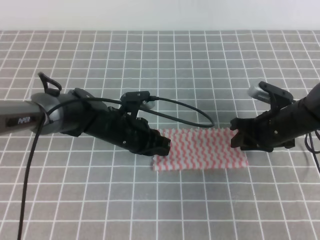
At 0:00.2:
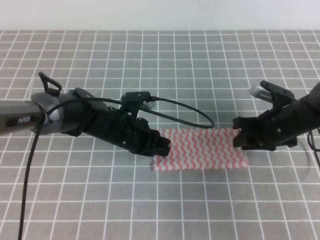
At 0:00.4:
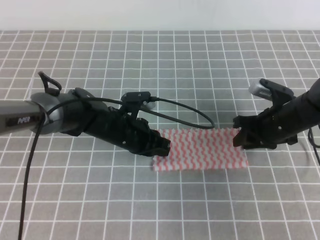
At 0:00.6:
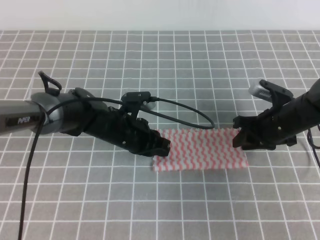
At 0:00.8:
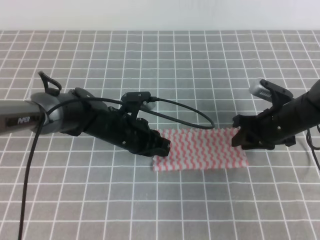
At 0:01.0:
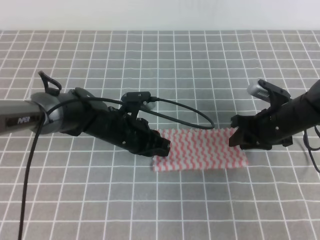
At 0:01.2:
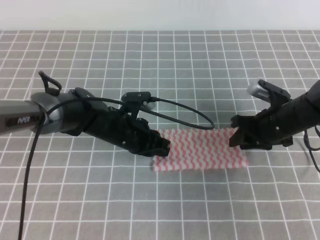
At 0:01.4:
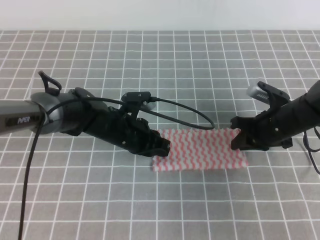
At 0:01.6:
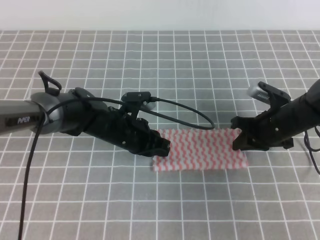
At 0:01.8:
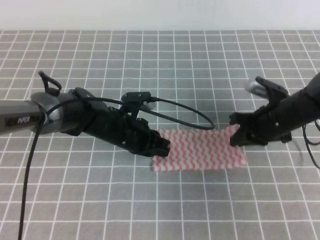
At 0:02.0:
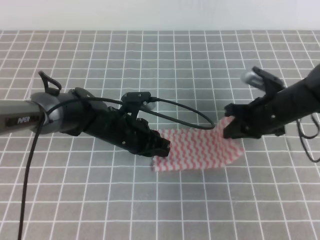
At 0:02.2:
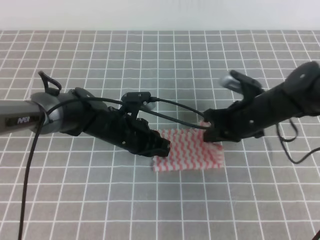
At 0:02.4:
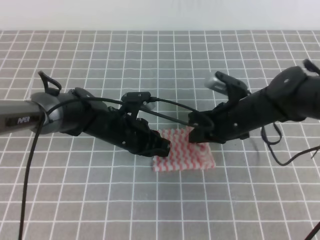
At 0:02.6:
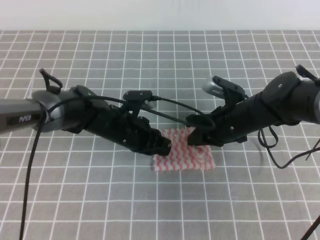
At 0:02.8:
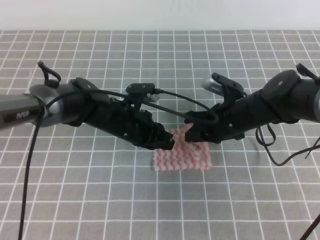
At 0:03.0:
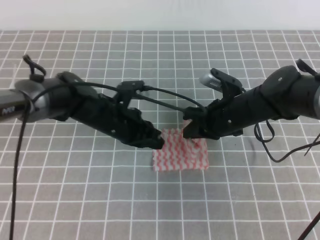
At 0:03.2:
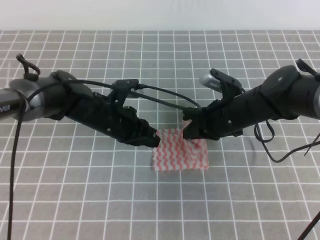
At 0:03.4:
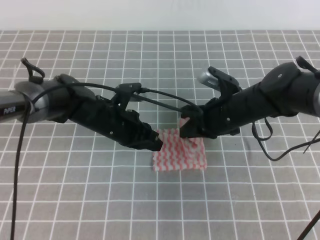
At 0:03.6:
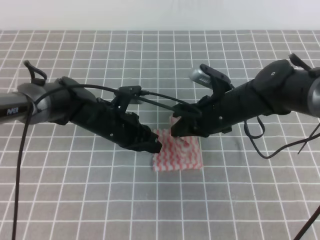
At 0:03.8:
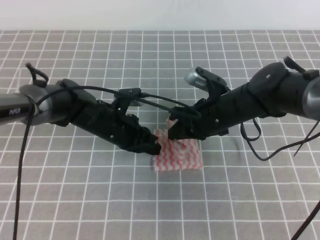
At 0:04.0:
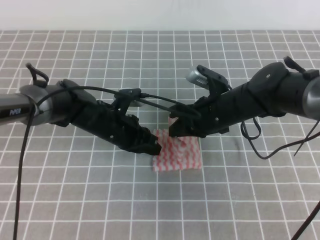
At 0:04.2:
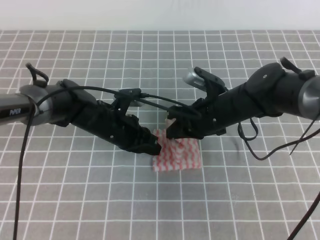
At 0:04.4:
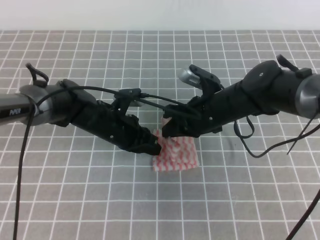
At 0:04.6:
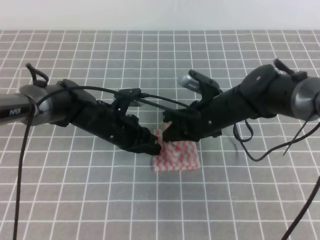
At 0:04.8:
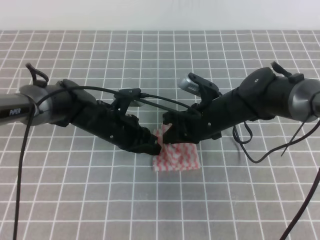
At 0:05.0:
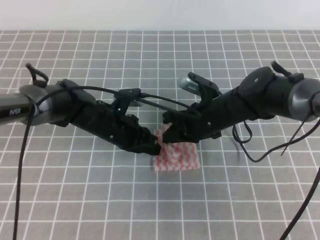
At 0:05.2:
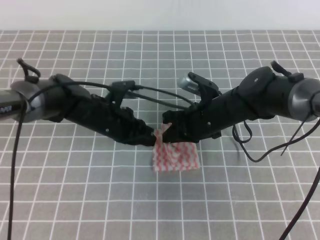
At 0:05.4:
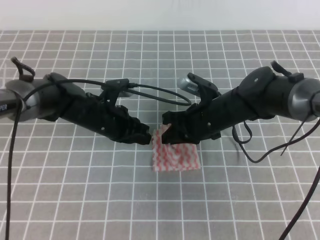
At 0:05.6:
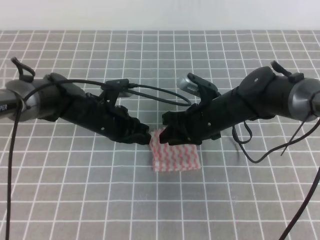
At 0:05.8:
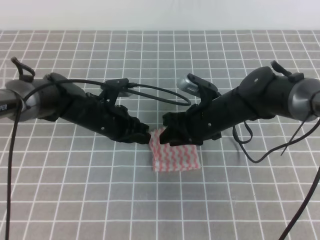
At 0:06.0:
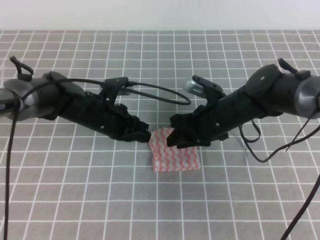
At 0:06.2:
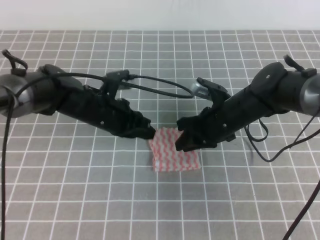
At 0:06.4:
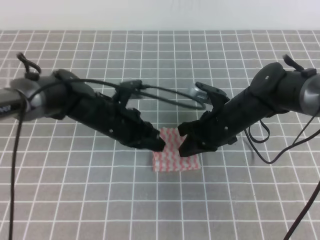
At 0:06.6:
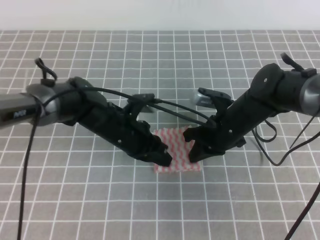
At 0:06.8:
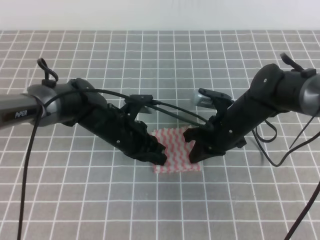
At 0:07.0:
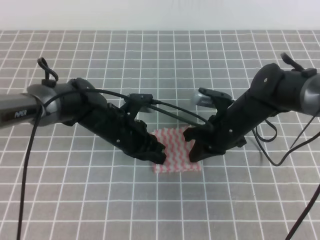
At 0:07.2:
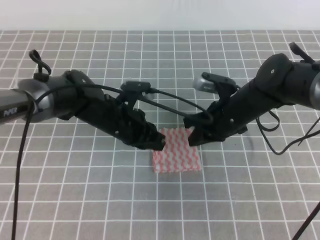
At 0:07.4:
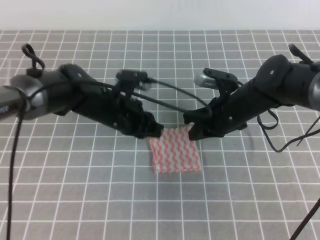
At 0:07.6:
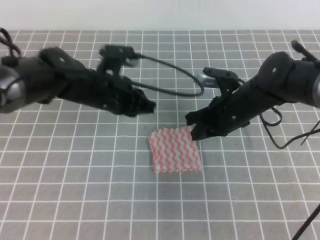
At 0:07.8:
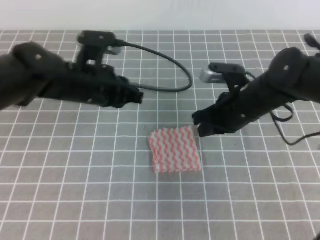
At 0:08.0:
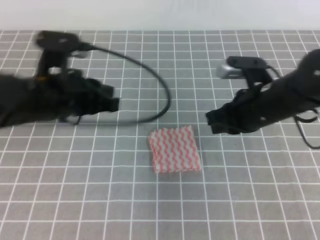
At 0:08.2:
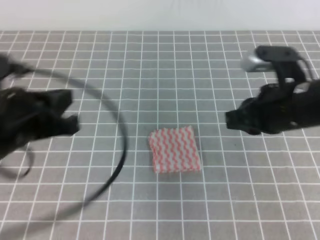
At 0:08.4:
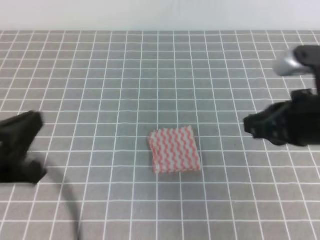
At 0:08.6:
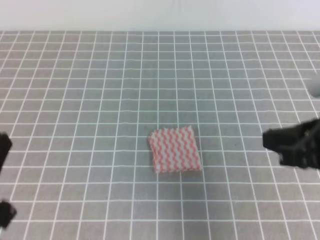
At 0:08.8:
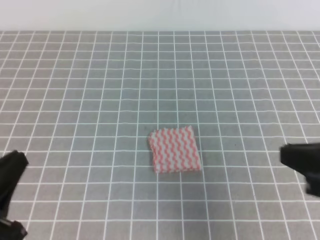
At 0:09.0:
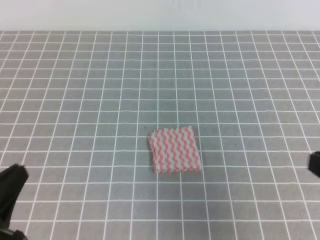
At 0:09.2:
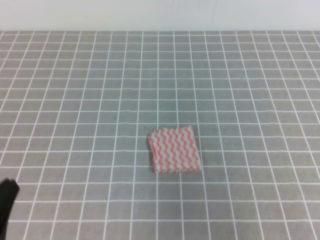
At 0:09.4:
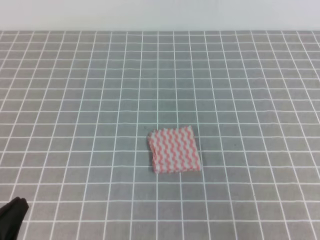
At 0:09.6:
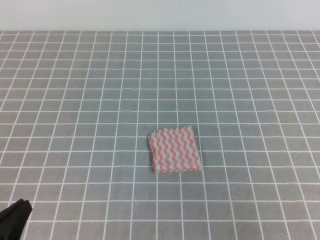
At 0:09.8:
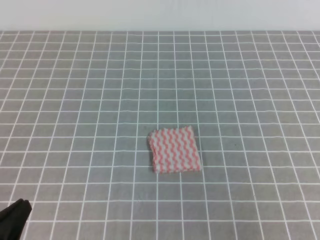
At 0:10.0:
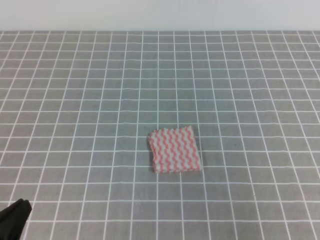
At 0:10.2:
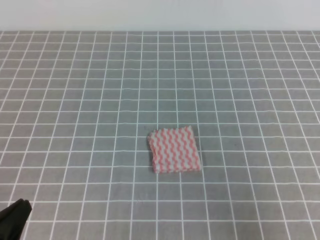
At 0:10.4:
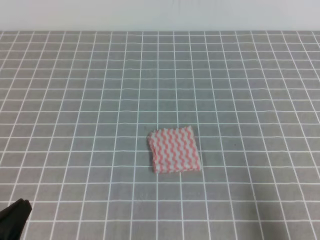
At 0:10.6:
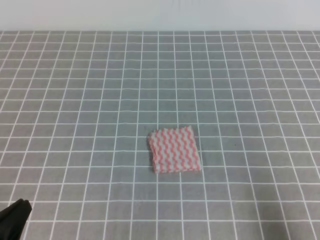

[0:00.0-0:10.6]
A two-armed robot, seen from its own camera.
0:00.0 to 0:01.6: The right gripper closes.
0:01.6 to 0:03.0: The right gripper shifts about 10 cm to the left.
0:03.0 to 0:04.6: The grippers move only a little.
0:04.6 to 0:06.0: The right gripper opens.
0:06.0 to 0:07.6: The left gripper is displaced upward by about 5 cm. The right gripper closes.
0:07.6 to 0:09.0: The left gripper heads backward and to the left, covering some 30 cm. Meanwhile the right gripper is displaced backward, to the right and upward by about 30 cm.
0:09.0 to 0:10.6: The right gripper moves downward, to the right and backward, approximately 15 cm. The left gripper shifts approximately 5 cm downward.

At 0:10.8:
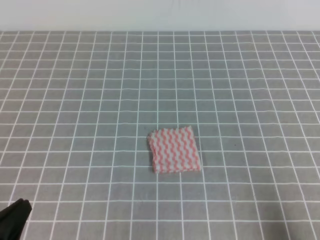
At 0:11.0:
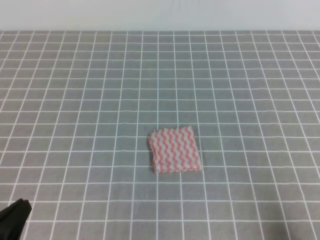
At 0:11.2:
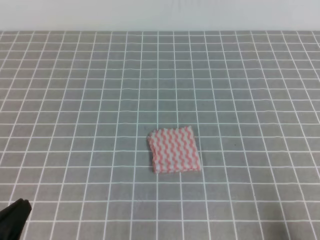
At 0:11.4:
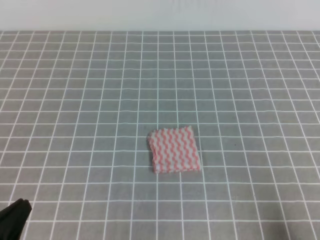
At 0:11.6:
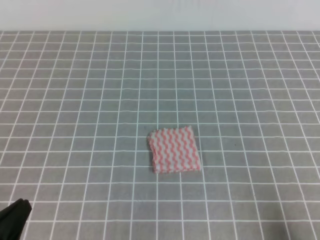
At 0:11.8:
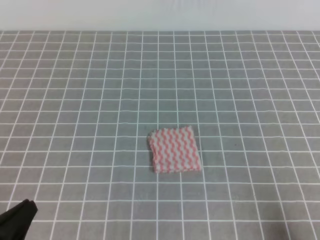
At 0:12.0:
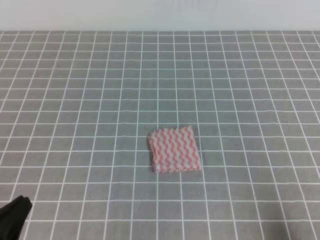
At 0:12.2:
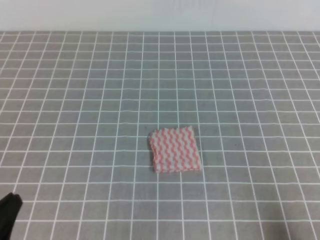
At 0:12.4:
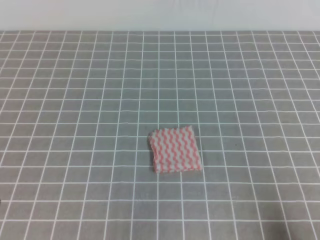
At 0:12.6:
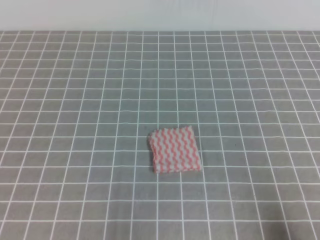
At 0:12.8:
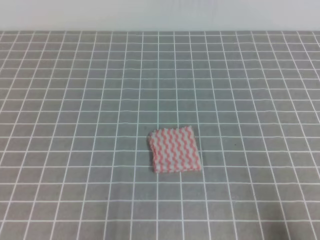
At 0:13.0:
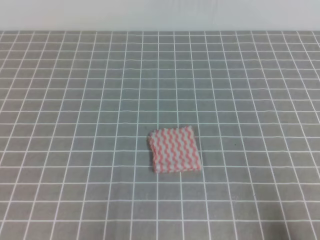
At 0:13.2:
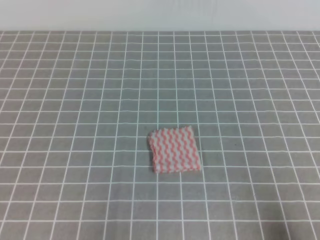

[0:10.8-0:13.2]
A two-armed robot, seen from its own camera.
Step, 0:10.8 to 0:13.2: Fold the towel.
0:12.0 to 0:13.2: There are only small adjustments of the grippers.
